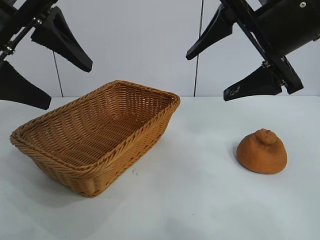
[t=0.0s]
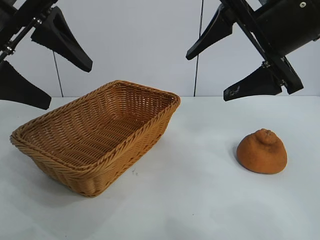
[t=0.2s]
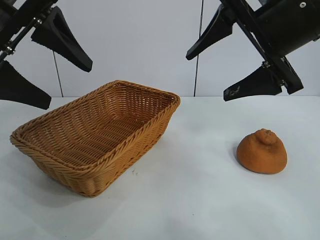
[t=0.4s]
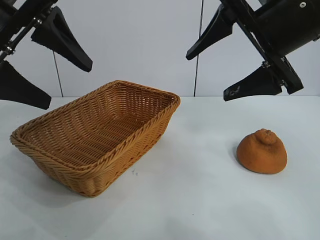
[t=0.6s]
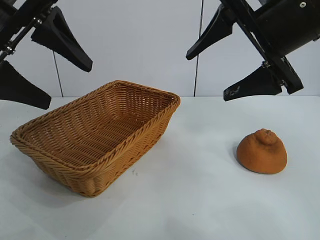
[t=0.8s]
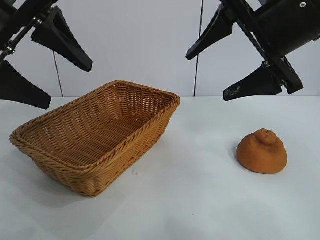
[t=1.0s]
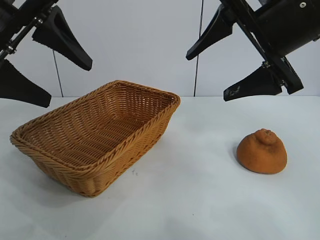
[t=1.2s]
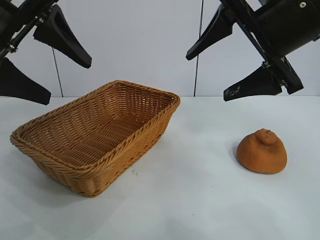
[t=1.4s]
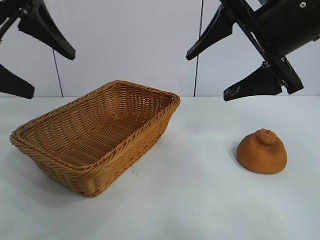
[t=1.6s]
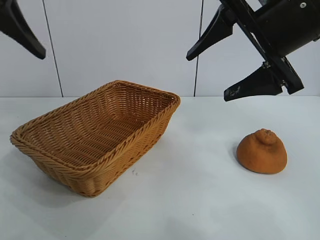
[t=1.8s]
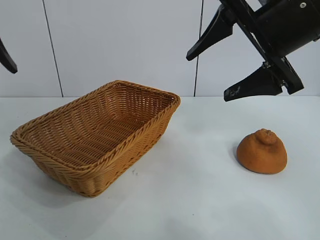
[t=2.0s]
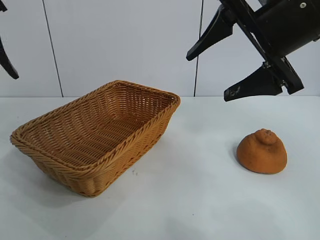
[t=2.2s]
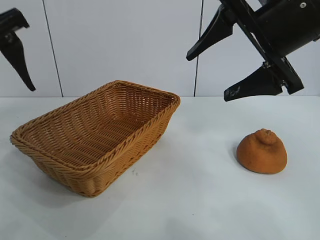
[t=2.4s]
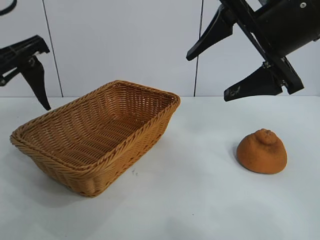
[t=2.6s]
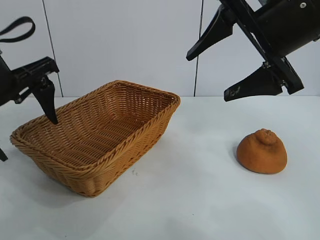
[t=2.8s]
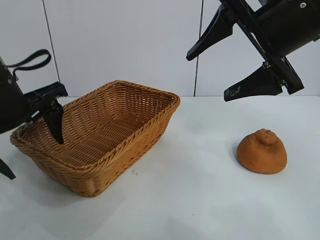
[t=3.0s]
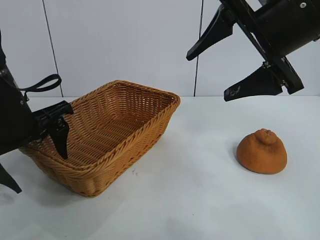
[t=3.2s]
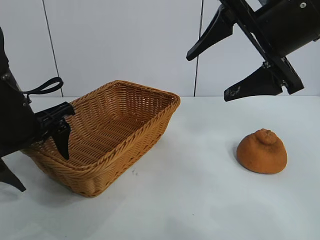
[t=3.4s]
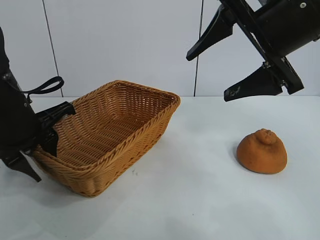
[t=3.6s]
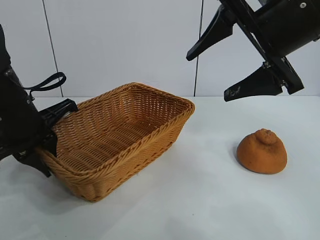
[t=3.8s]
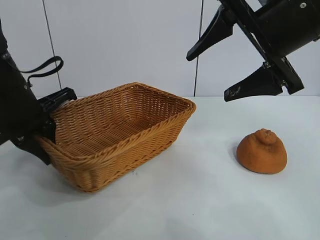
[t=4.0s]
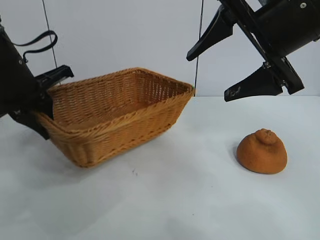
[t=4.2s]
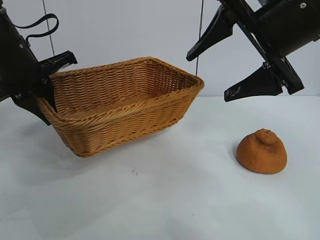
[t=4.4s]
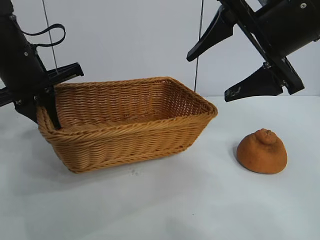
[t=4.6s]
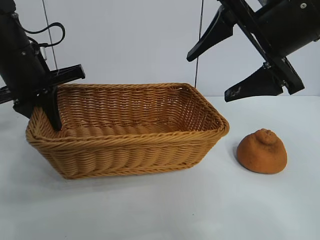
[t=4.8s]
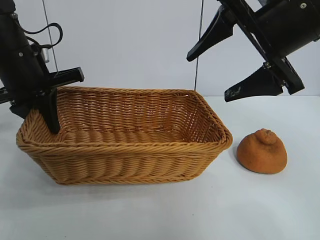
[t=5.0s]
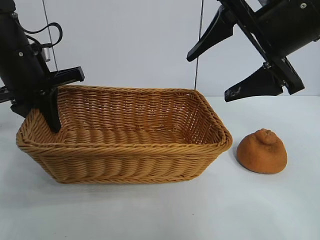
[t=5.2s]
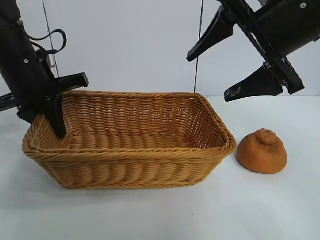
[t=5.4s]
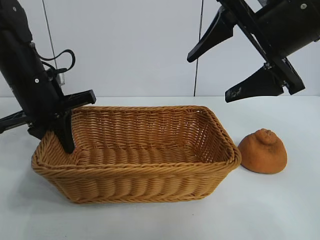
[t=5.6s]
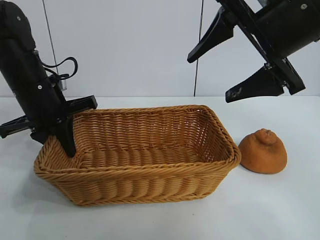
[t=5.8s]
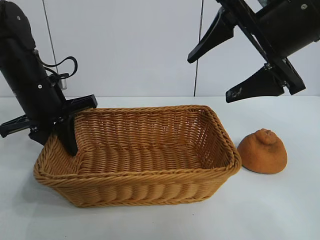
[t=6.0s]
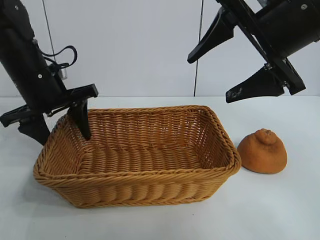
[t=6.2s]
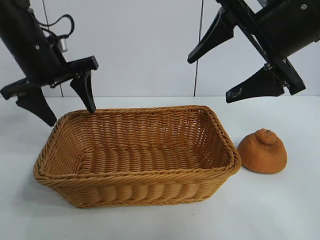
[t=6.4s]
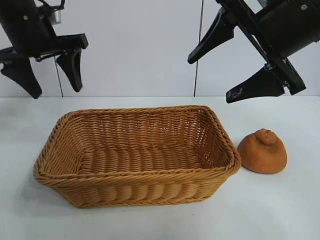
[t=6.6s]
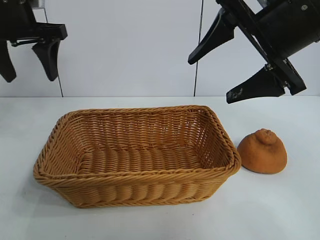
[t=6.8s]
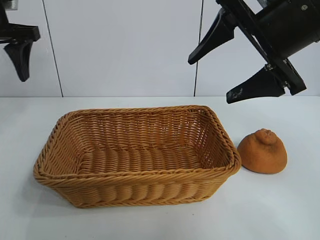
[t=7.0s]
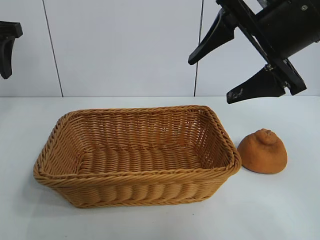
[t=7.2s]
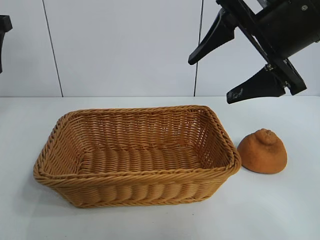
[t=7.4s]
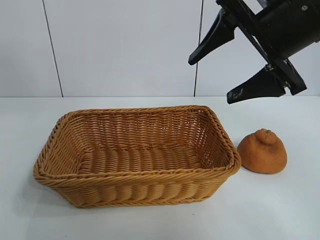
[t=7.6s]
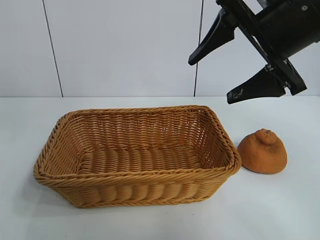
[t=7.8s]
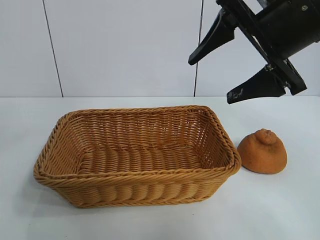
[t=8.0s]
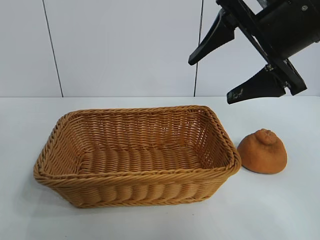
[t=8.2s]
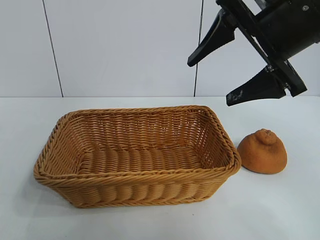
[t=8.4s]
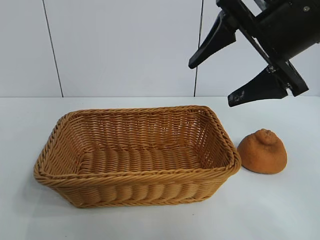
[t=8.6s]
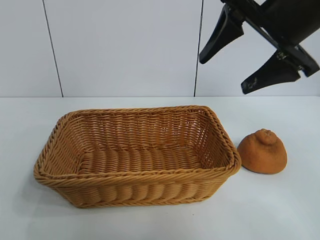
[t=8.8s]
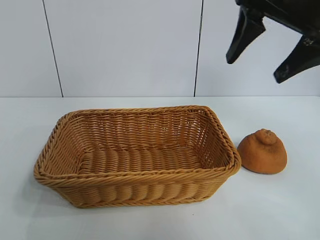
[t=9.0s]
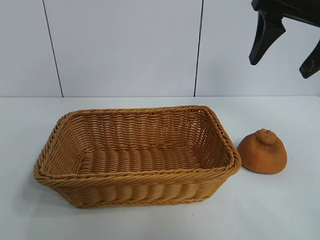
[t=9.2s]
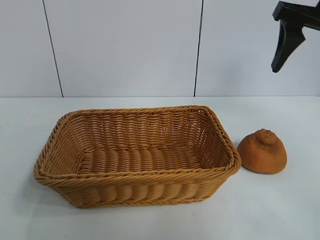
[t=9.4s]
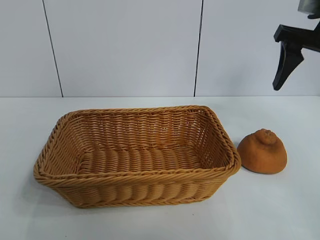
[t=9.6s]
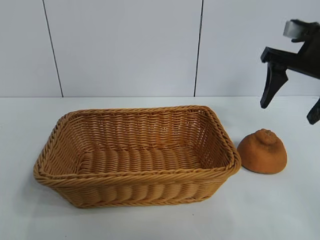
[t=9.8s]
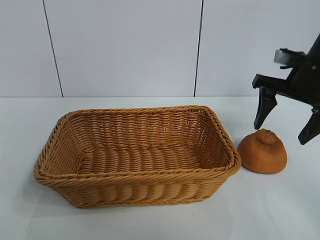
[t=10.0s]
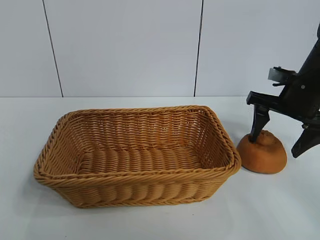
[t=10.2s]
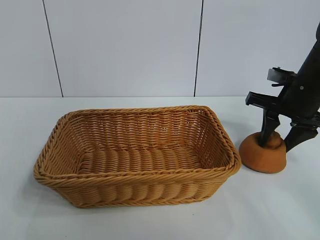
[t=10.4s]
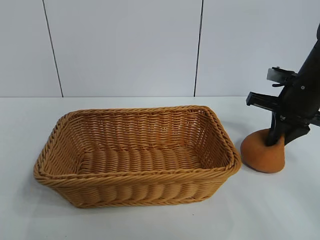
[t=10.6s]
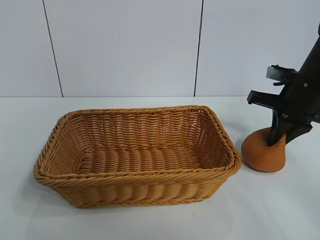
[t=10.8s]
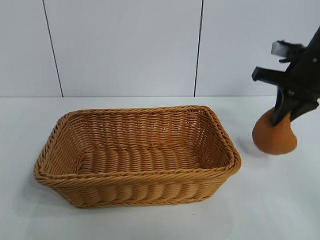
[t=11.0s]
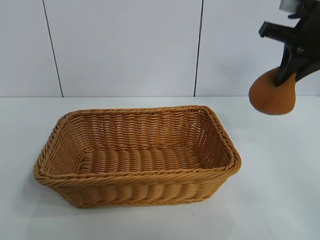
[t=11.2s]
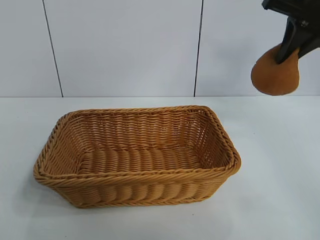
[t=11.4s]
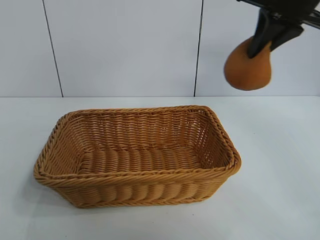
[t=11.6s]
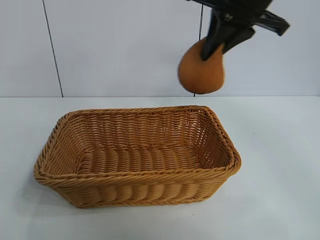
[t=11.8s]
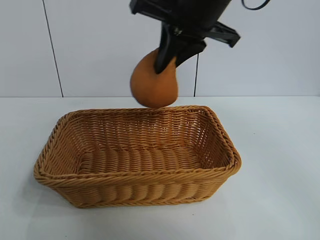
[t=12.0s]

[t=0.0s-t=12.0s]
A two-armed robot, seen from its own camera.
Task of the whole recording: pick up the orange and put it into the basket.
Step, t=1.2s to t=3.6s: Grasp the basket with left gripper.
Step, t=3.8s to t=6.0s: Place the basket in the center of view with left gripper.
Step, t=6.4s to t=10.4s: Grasp the orange with right gripper.

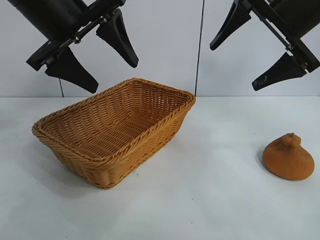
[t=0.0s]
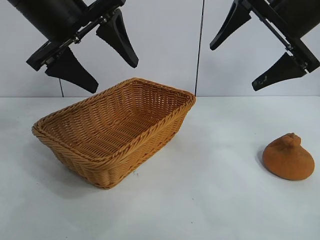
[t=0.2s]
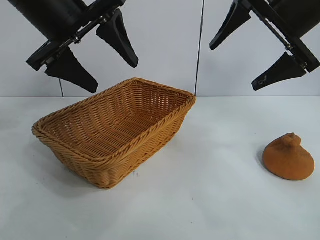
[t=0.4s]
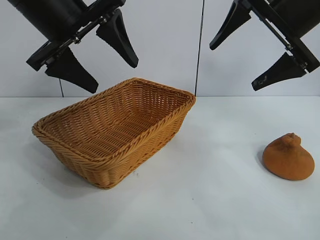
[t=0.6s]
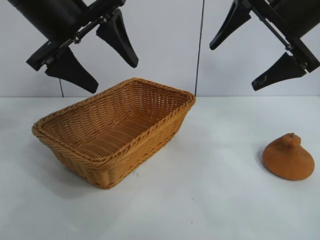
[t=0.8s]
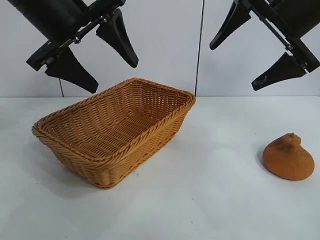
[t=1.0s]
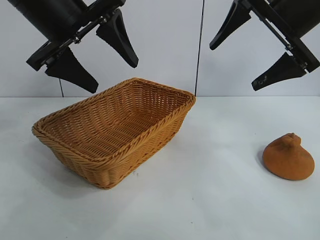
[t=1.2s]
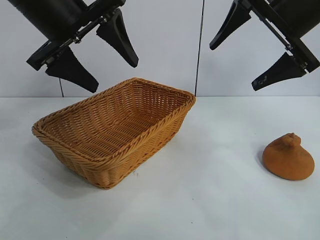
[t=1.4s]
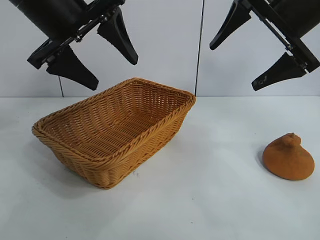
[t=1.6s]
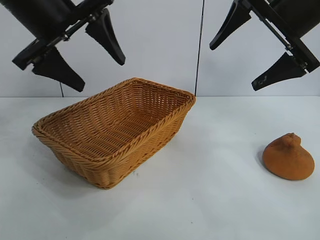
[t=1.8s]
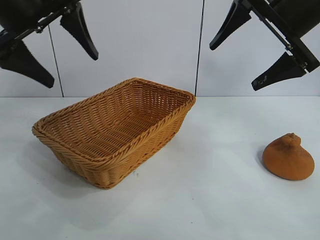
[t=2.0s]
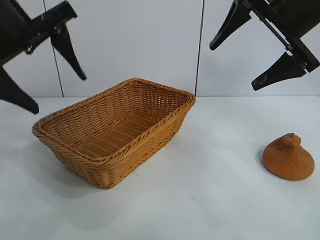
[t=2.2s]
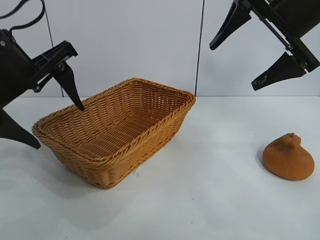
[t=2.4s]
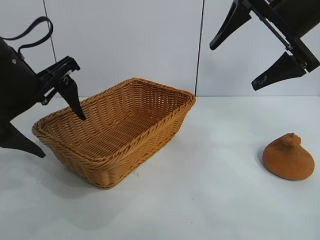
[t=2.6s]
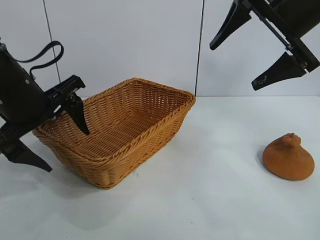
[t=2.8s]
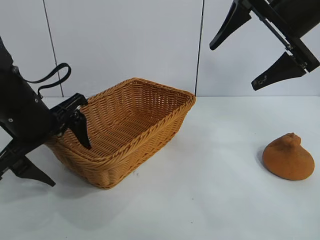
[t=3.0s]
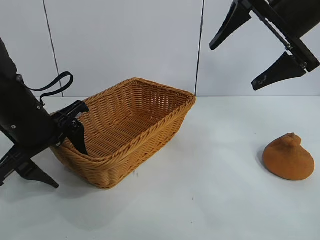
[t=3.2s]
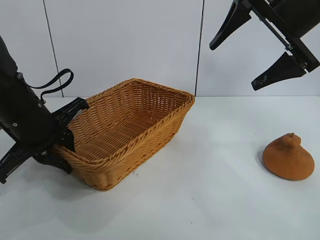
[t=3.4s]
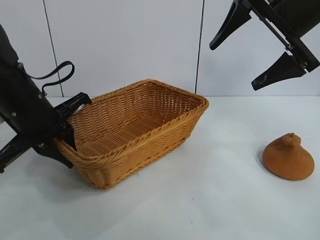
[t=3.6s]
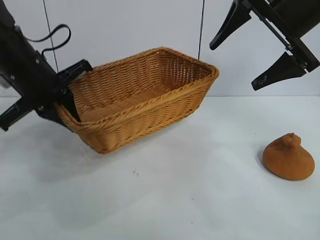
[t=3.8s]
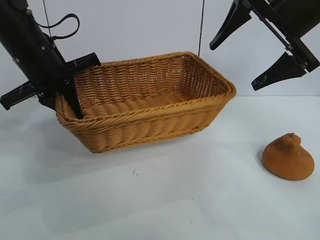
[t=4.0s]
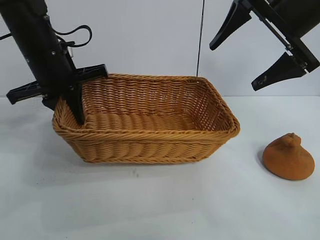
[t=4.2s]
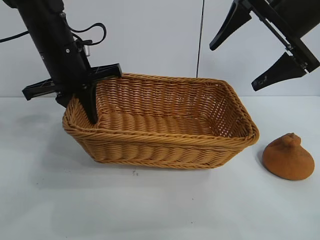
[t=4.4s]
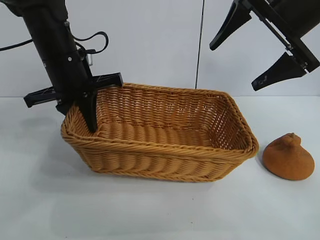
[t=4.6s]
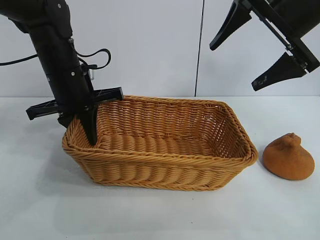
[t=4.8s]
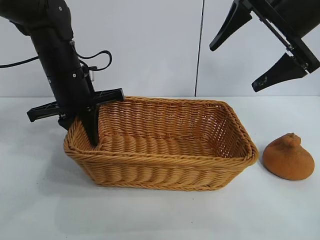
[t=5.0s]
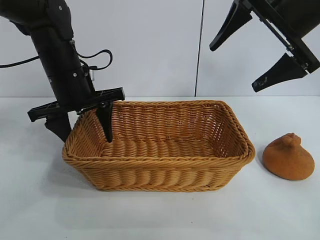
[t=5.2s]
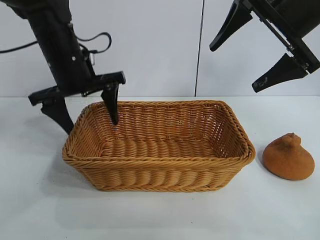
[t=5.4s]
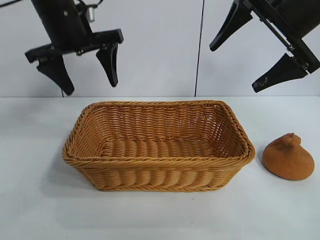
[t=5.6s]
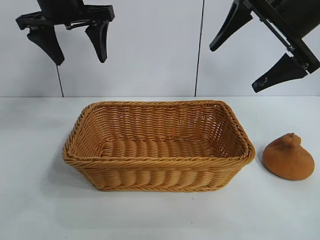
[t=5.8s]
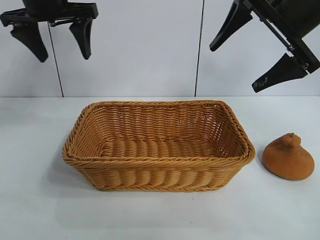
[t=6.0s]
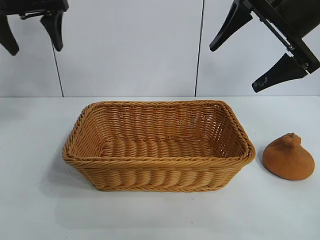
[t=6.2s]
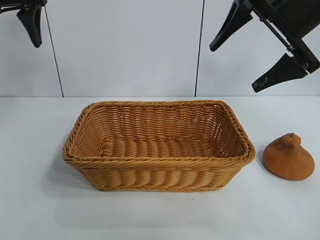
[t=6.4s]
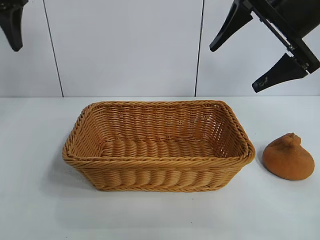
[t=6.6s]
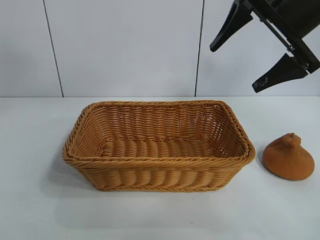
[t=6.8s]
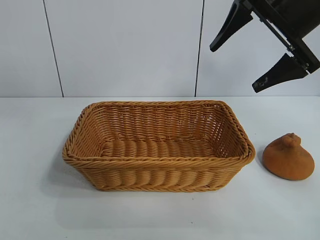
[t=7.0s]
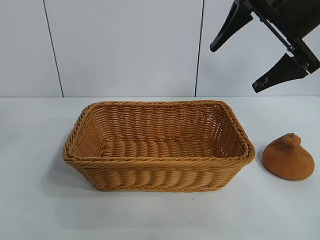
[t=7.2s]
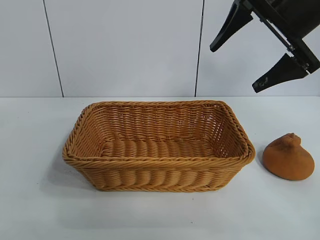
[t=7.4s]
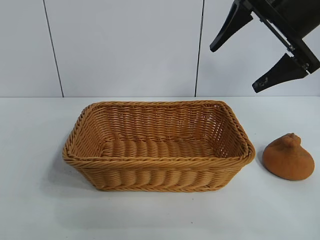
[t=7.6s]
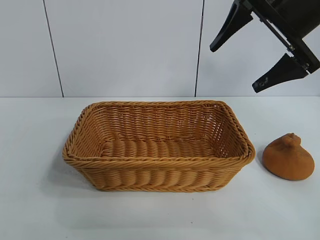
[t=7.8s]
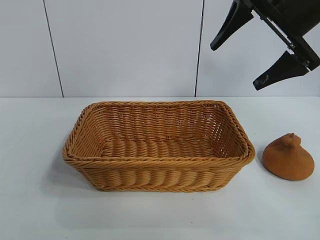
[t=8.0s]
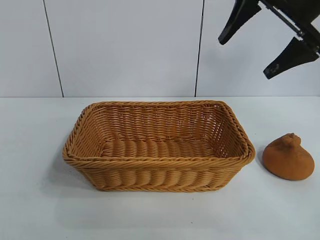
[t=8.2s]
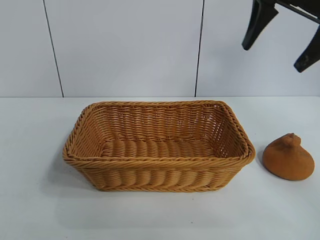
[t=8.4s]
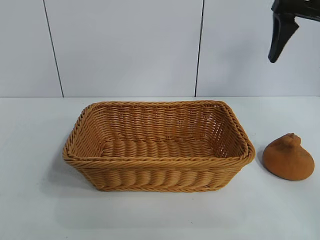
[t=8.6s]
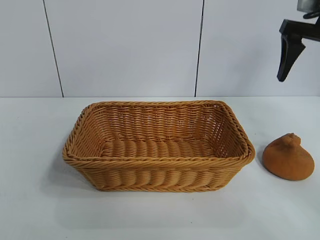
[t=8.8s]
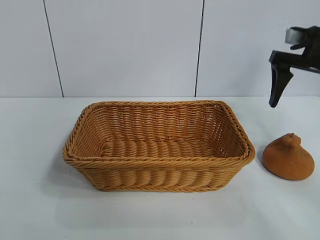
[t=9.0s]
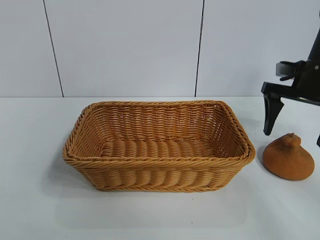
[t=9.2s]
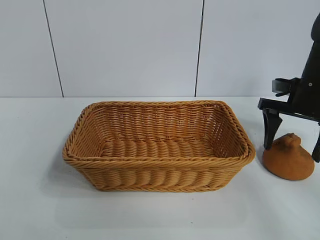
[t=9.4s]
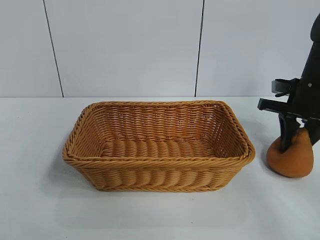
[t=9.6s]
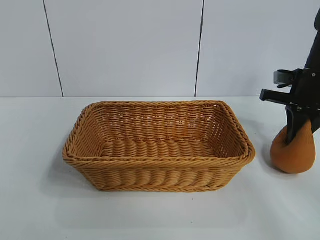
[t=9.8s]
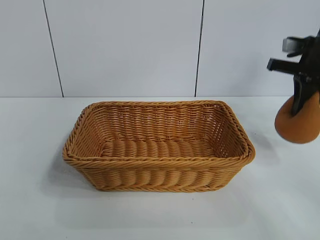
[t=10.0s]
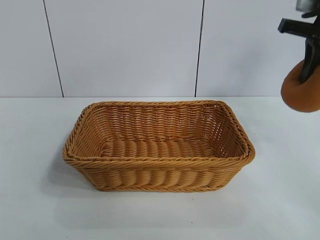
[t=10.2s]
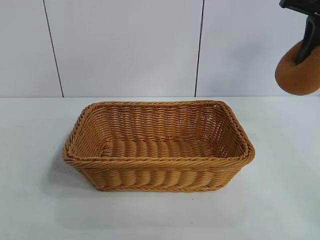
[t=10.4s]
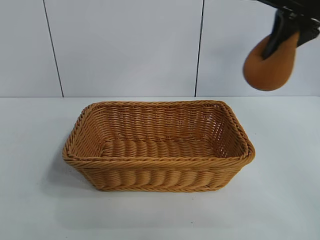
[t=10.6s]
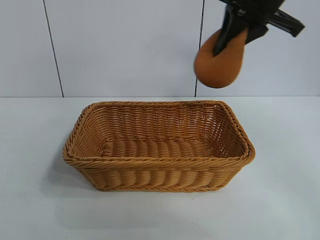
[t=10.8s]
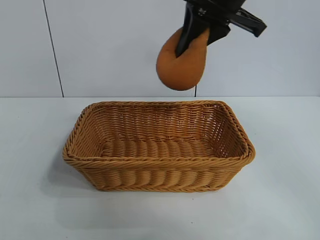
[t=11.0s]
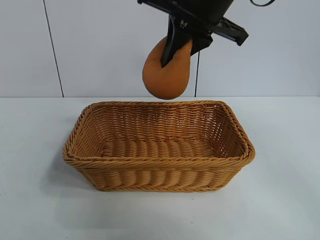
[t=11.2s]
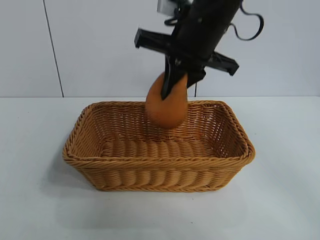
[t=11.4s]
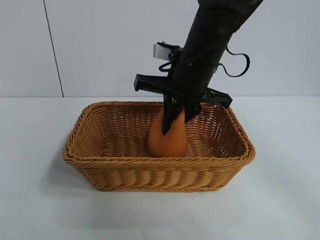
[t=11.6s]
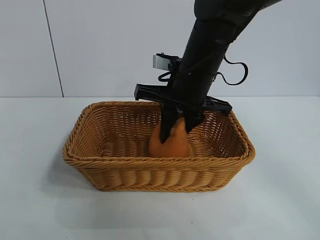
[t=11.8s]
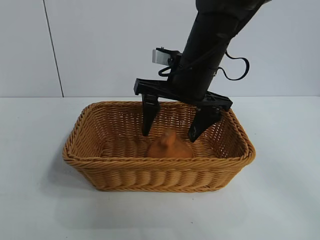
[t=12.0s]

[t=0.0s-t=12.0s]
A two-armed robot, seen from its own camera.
Task of the whole recording: pick up the orange and put it into the basket.
Step, t=1.2s to t=3.4s: Grasp the basket with left gripper.
Step, t=3.8s to t=5.2s: Place the basket in the center of view with left gripper.
Step, t=5.4s to t=9.6s: Grasp the orange with right gripper.
Step, t=9.8s to t=12.0s: Place the orange in the basket with right gripper.
